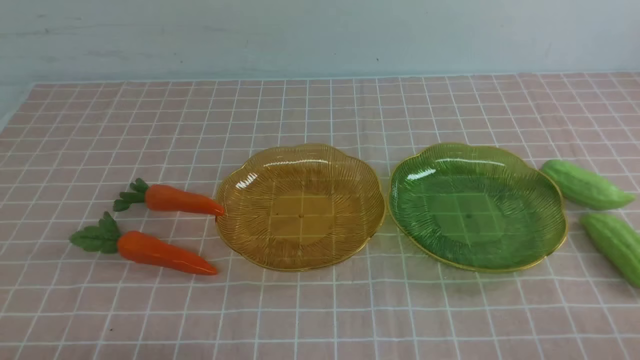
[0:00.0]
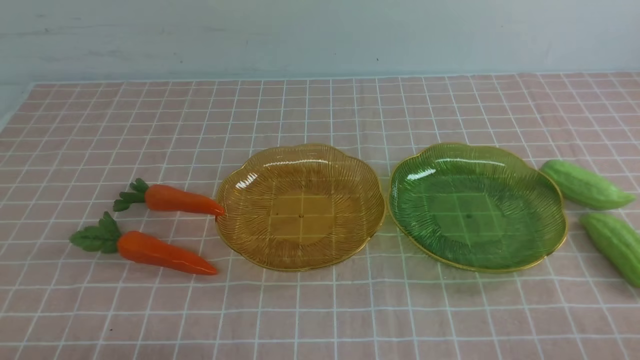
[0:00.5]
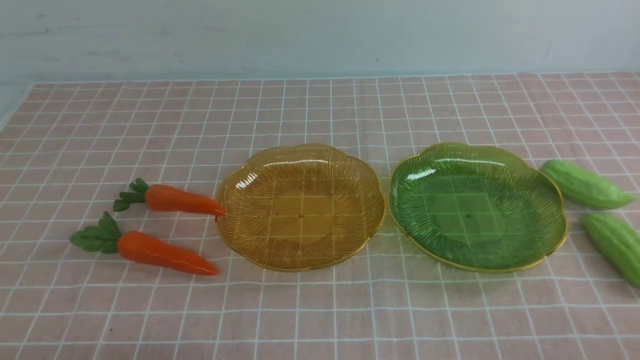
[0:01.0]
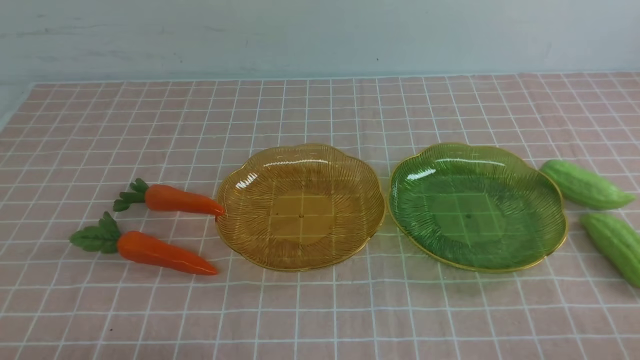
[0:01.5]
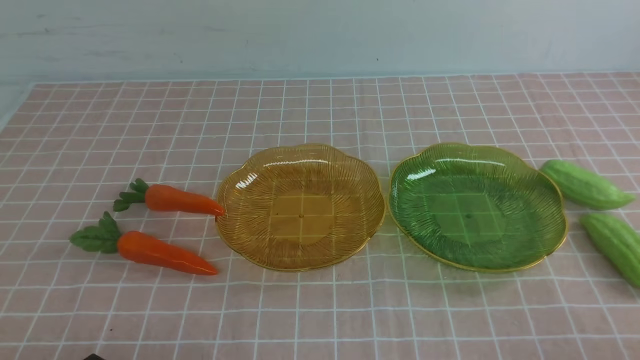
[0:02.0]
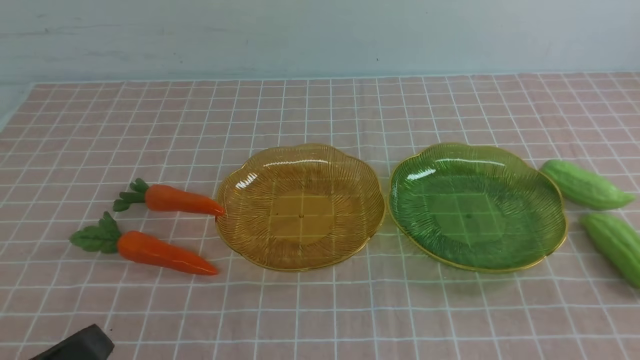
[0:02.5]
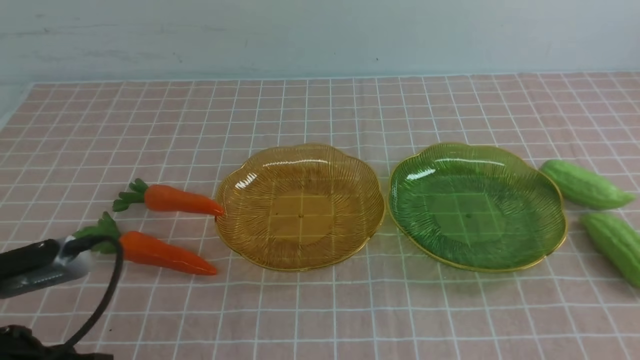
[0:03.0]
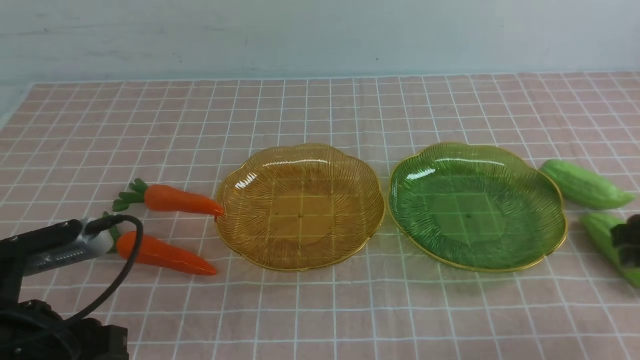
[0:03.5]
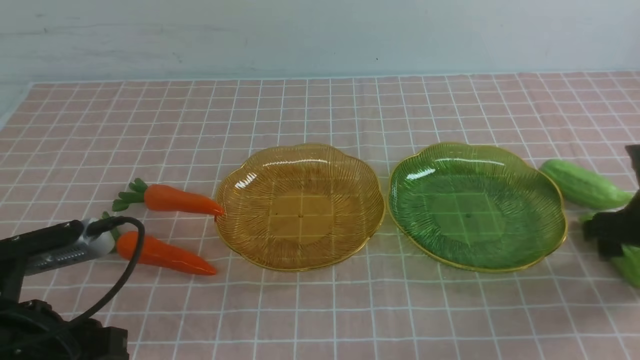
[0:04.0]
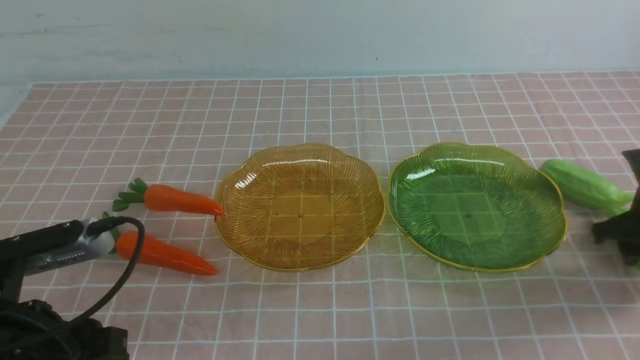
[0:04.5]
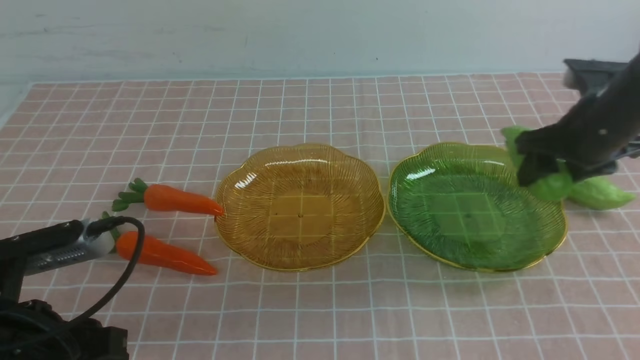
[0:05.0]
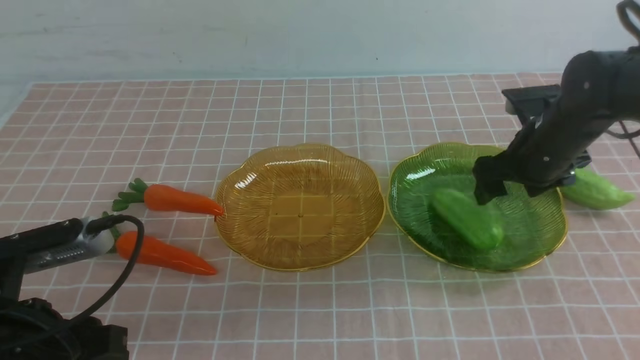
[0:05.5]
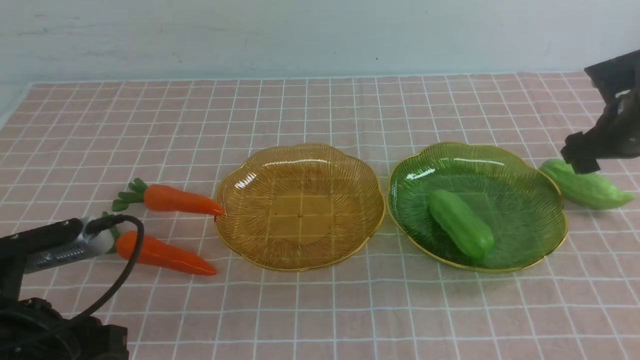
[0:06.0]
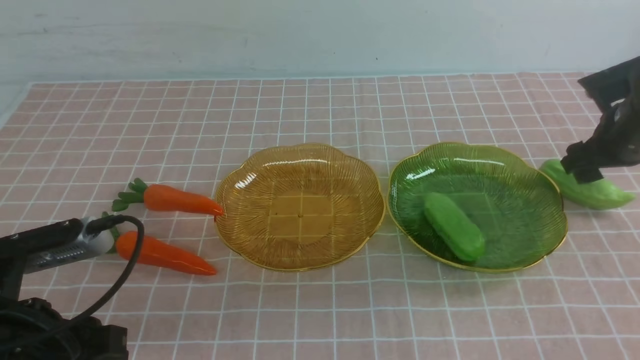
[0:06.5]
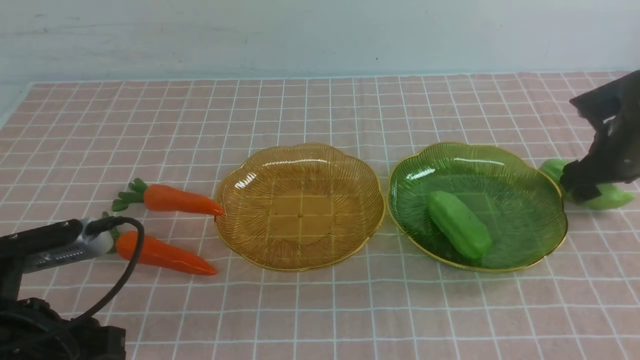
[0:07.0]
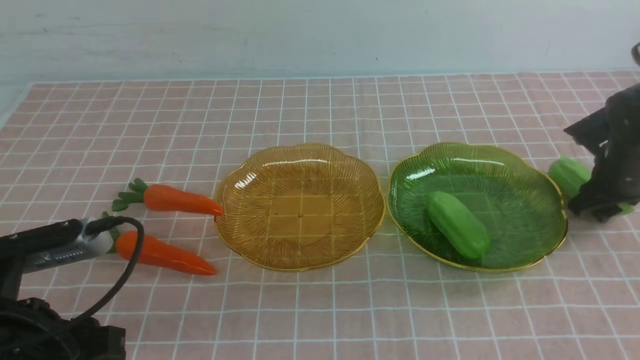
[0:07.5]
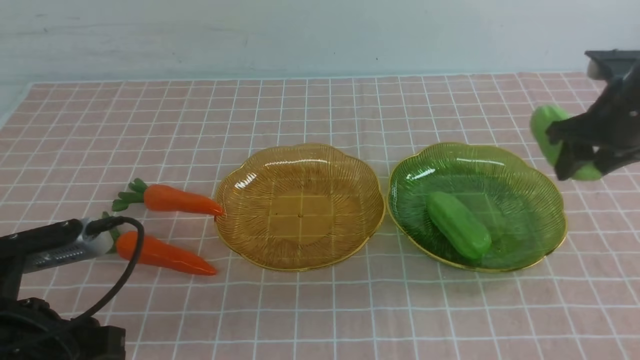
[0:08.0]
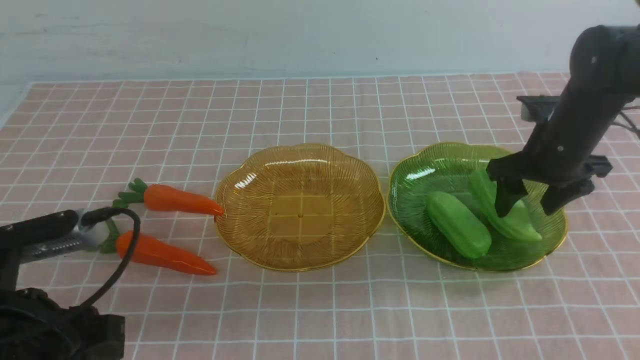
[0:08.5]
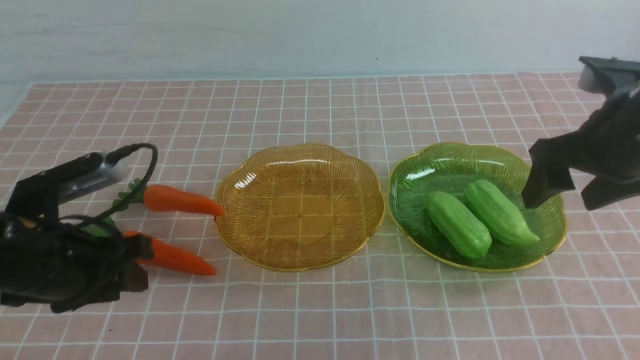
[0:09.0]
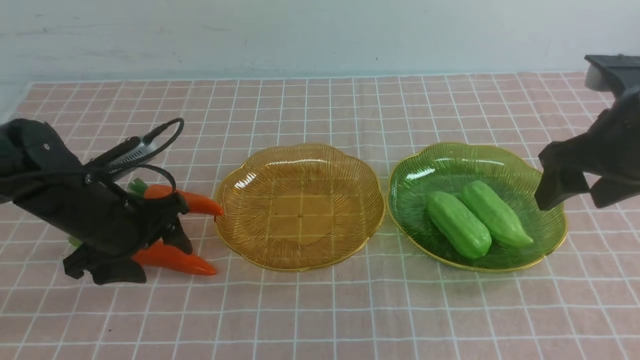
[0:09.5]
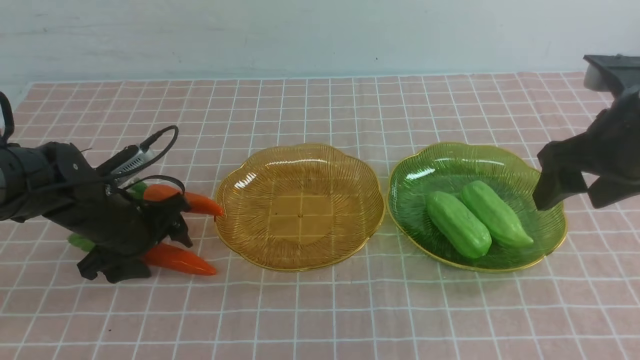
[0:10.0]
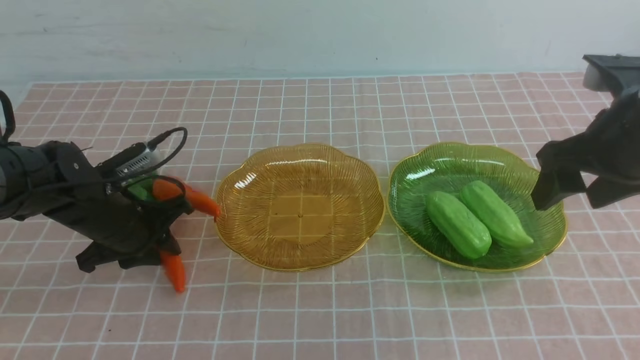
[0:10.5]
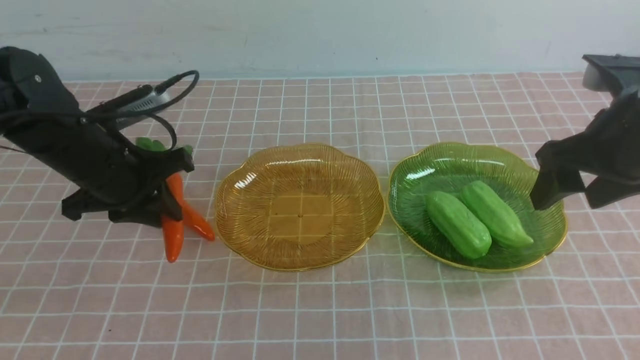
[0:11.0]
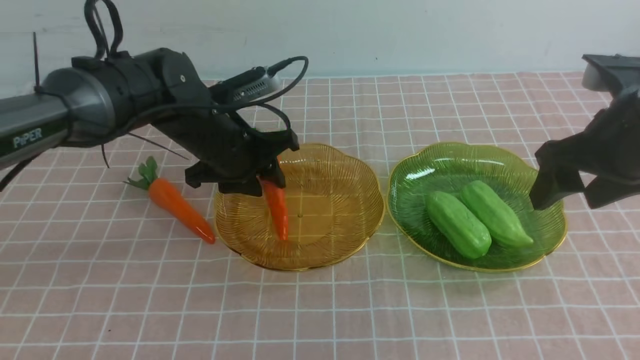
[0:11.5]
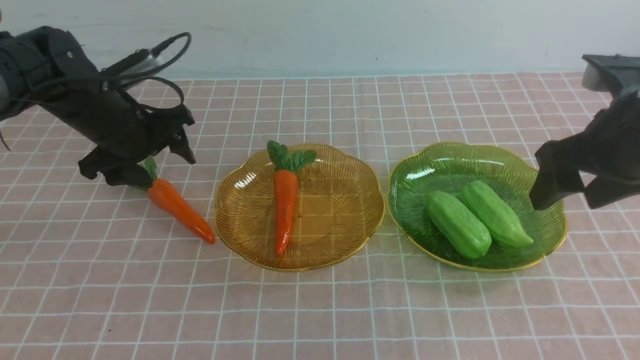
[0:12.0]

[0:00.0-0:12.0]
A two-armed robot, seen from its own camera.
Step, 0:00.0 to 0:08.5: use the right arm to grab a chayote and put it into the right plate.
Step, 0:09.0 to 0:11.5: use the left arm to grab a carrot and put it into the left plate.
0:02.0 to 0:04.0: The left gripper travels forward and upward by some 10 cm, and opens up. The right gripper travels forward by approximately 30 cm, and opens up.
0:04.0 to 0:06.0: The right gripper moves forward, approximately 10 cm, and goes to the left and returns, about 10 cm each way.
0:06.0 to 0:08.0: The right gripper heads to the left, covering some 10 cm.
0:08.0 to 0:10.0: The left gripper shifts about 20 cm forward, and opens, then closes once more, while the right gripper moves backward and upward, roughly 10 cm.
0:10.0 to 0:12.0: The left gripper travels forward by roughly 10 cm, travels to the right and back again, approximately 10 cm each way, and opens its fingers.

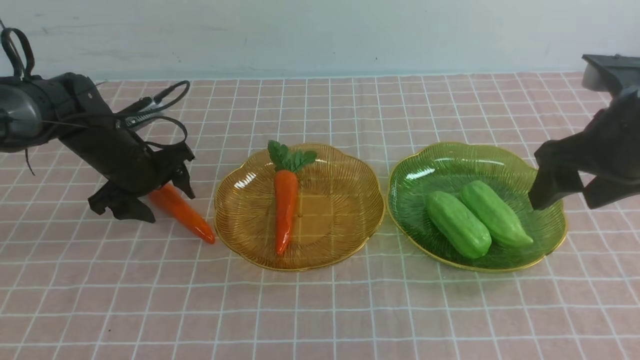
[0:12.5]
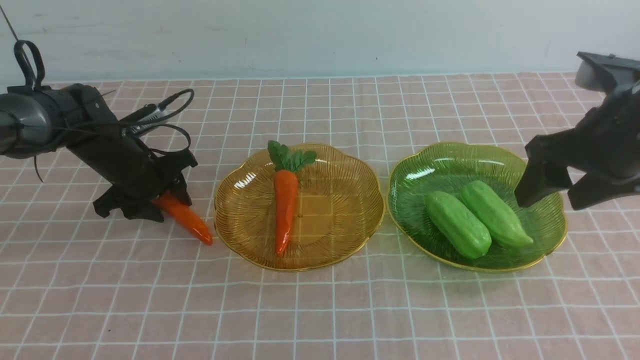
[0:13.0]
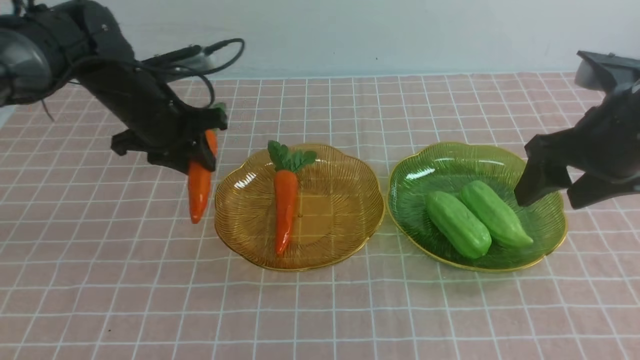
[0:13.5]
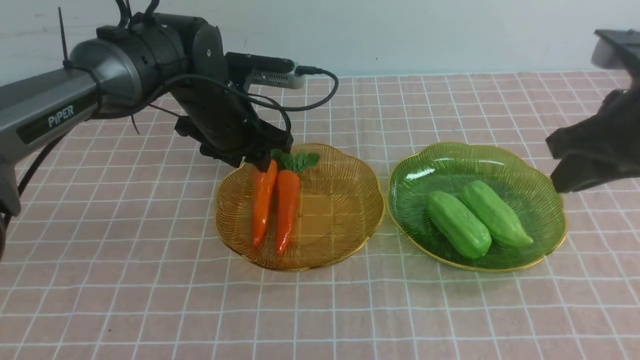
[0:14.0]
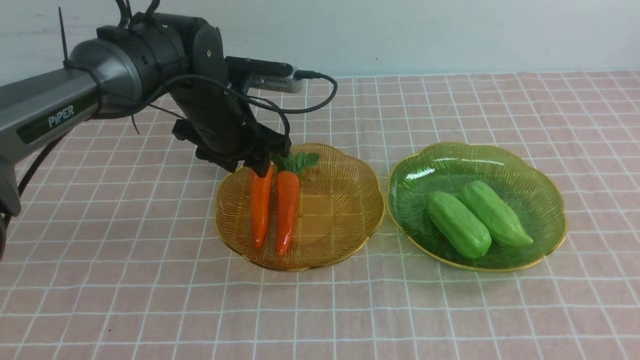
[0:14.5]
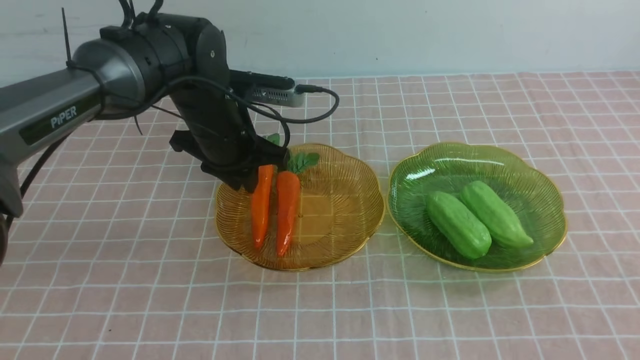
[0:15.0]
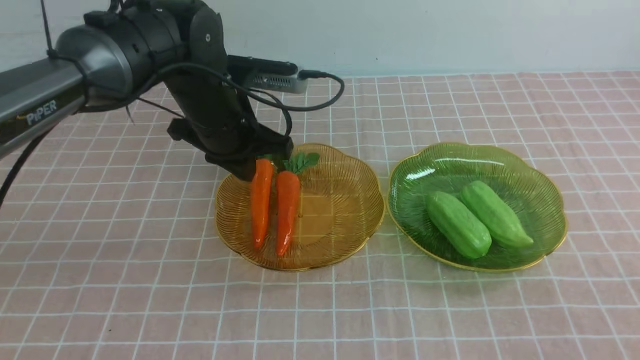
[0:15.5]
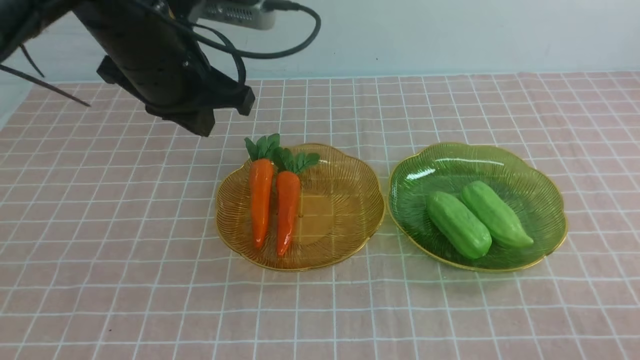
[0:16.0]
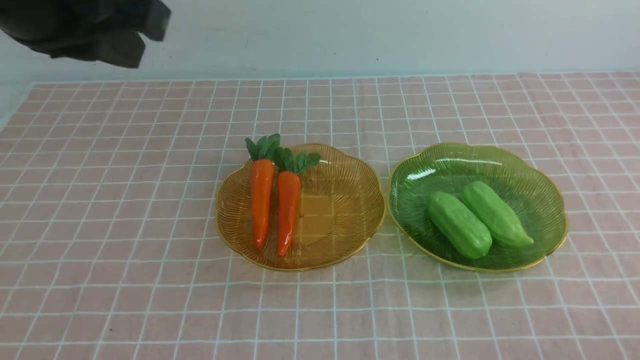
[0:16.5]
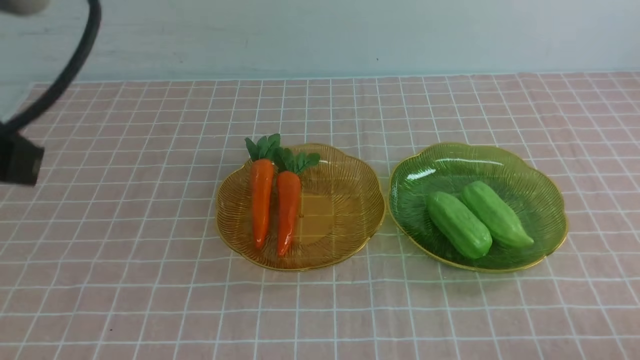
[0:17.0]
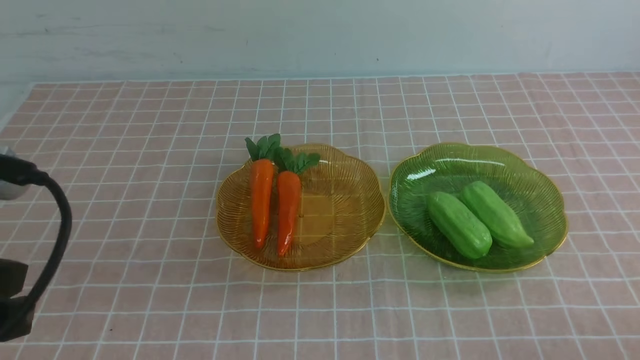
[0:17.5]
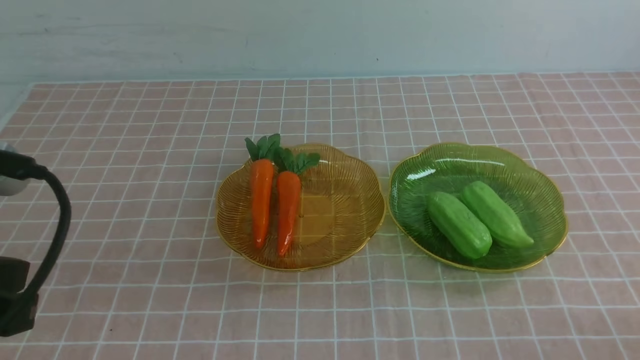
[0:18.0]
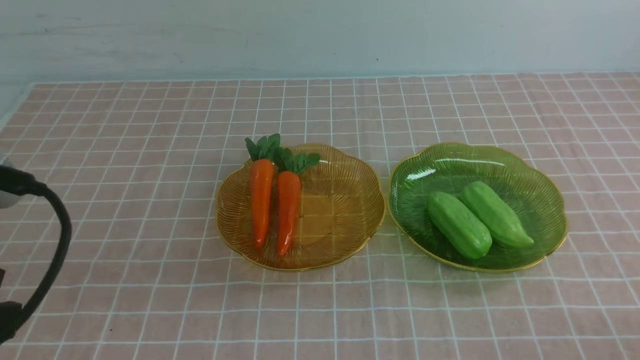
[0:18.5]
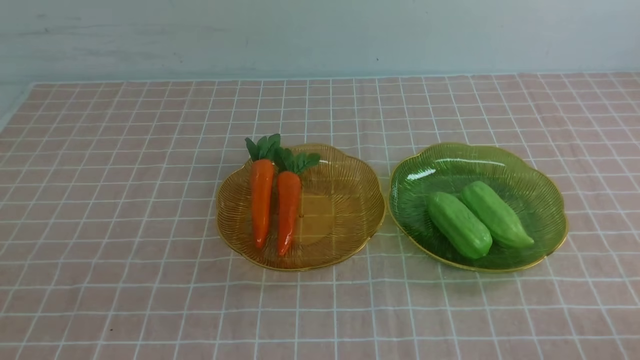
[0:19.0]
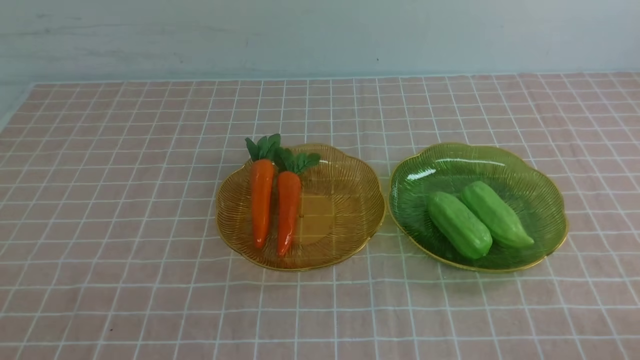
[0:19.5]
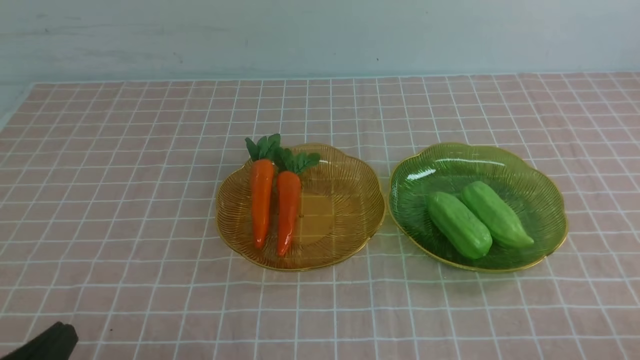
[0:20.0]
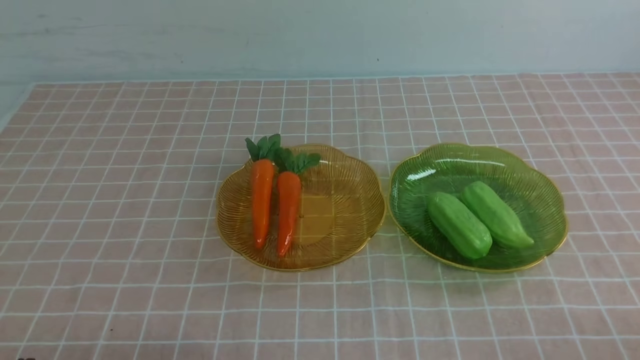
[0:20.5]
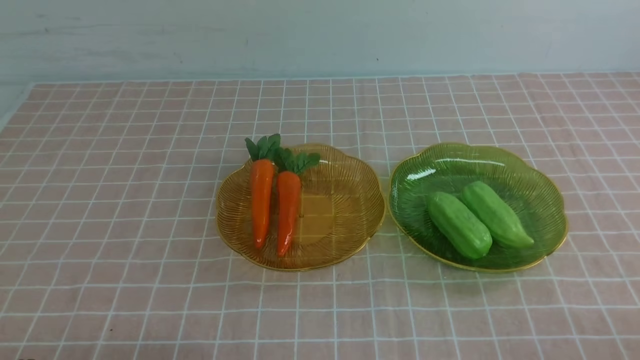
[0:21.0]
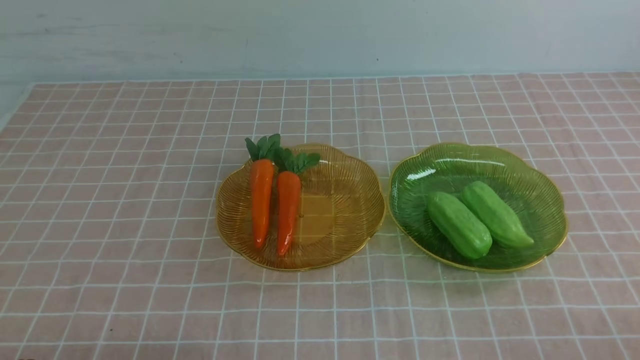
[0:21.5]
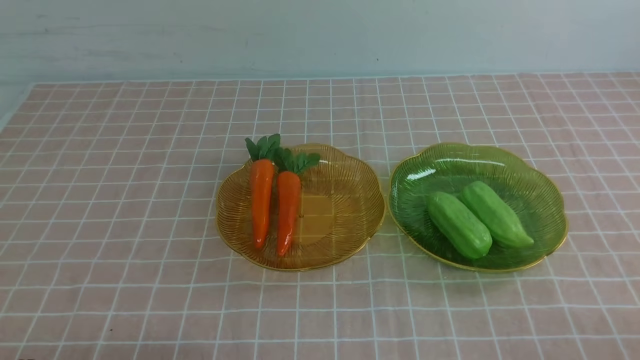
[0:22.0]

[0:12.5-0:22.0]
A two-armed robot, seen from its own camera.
Step, 0:12.5 to 0:14.0: use the left arm to grab a carrot and put it into the left plate.
0:12.5 to 0:14.5: The left gripper is displaced to the right and upward by about 15 cm, while the right gripper shifts about 25 cm backward, and closes up.
0:14.5 to 0:16.5: The left gripper moves backward and upward, approximately 30 cm, and closes its fingers; the right gripper goes approximately 25 cm downward.
0:16.5 to 0:18.0: The left gripper shifts roughly 10 cm downward and backward.
0:18.0 to 0:20.0: The left gripper heads downward, covering approximately 15 cm.
